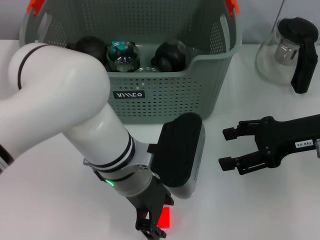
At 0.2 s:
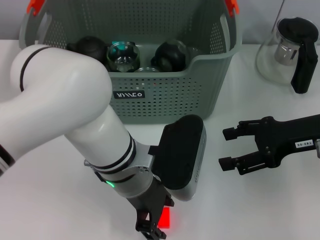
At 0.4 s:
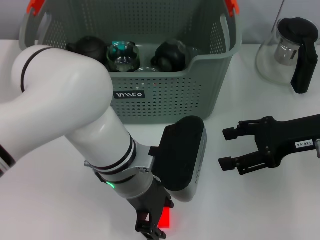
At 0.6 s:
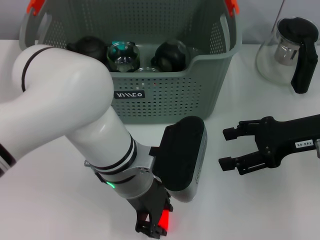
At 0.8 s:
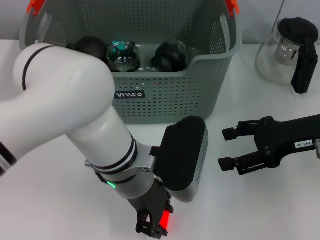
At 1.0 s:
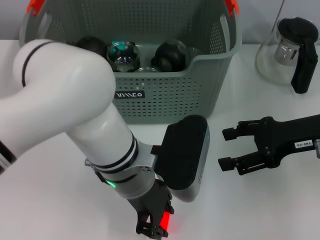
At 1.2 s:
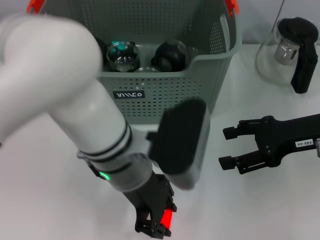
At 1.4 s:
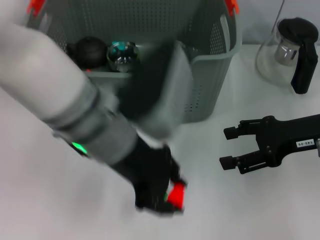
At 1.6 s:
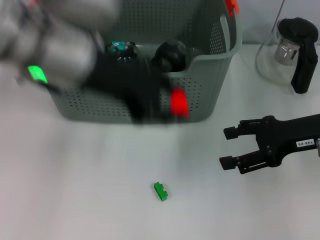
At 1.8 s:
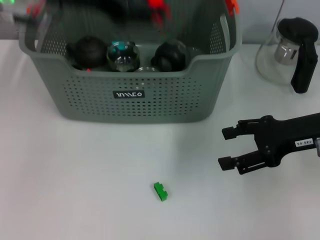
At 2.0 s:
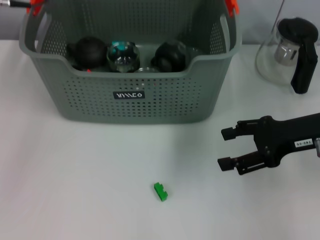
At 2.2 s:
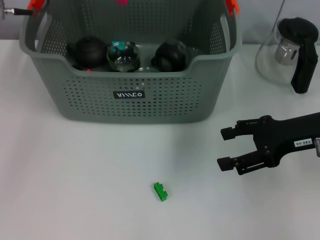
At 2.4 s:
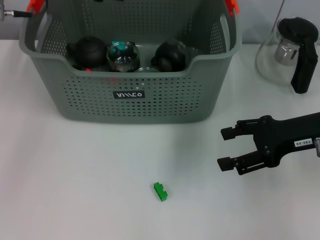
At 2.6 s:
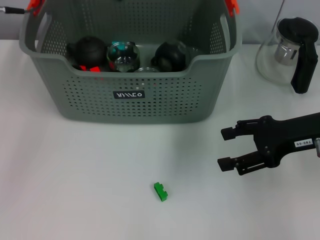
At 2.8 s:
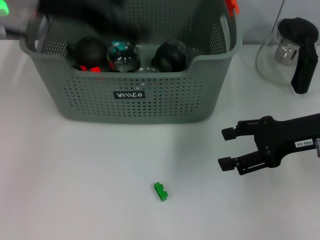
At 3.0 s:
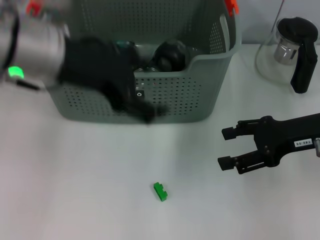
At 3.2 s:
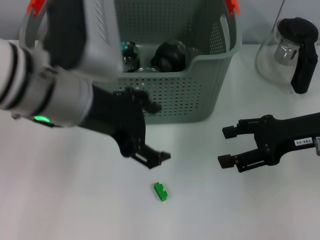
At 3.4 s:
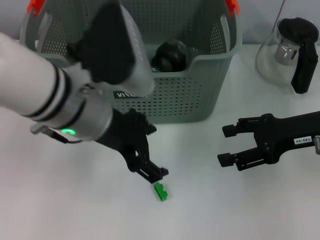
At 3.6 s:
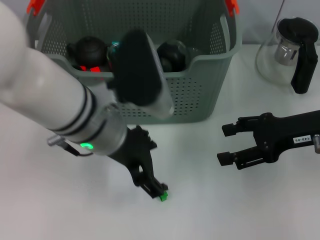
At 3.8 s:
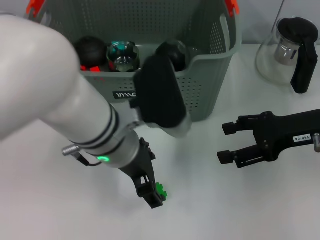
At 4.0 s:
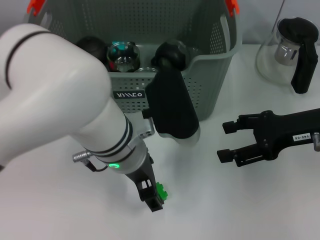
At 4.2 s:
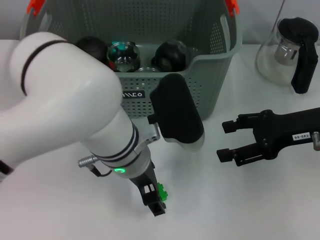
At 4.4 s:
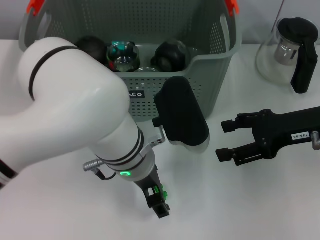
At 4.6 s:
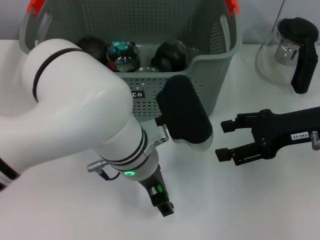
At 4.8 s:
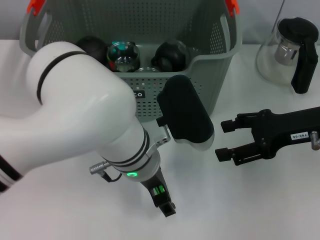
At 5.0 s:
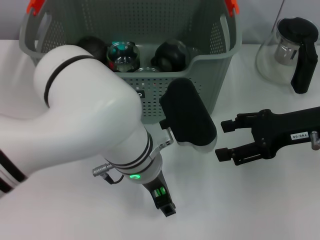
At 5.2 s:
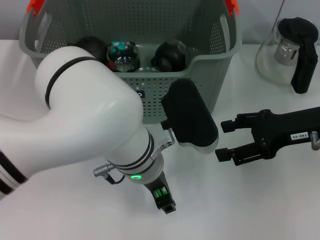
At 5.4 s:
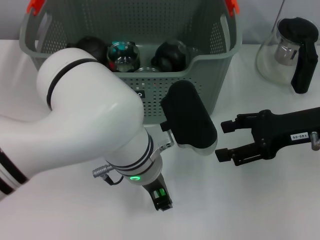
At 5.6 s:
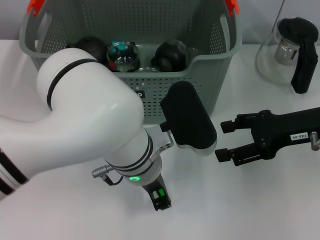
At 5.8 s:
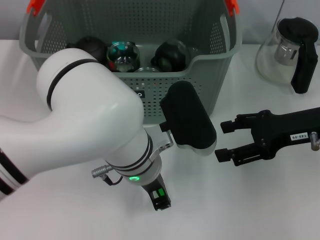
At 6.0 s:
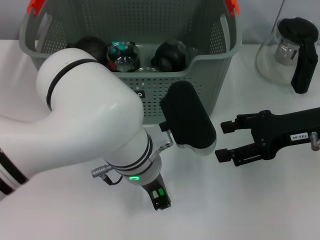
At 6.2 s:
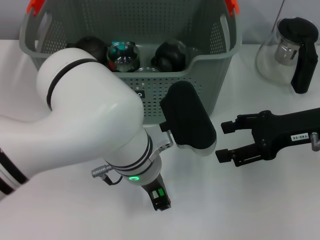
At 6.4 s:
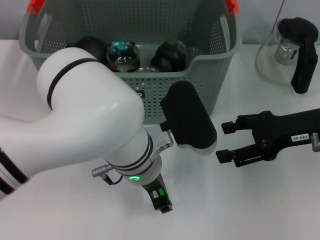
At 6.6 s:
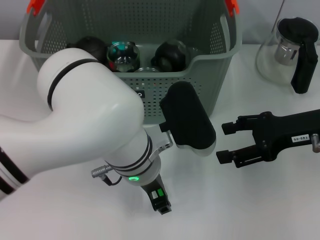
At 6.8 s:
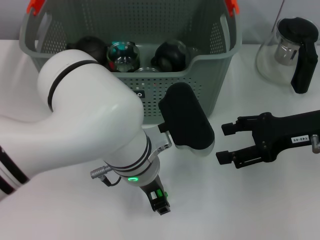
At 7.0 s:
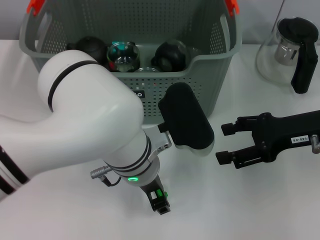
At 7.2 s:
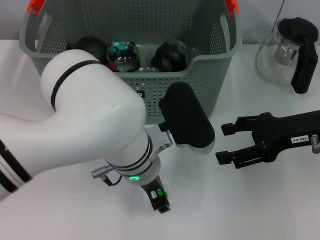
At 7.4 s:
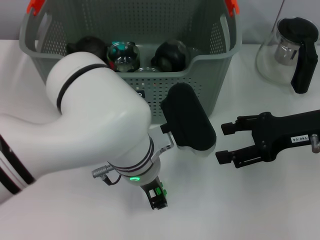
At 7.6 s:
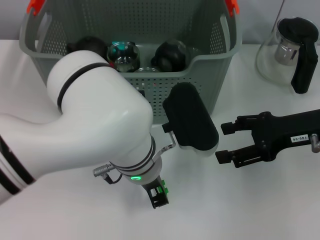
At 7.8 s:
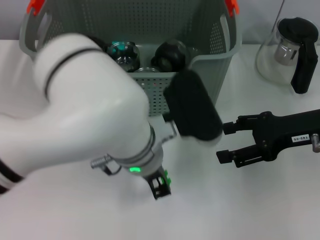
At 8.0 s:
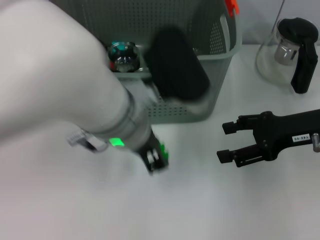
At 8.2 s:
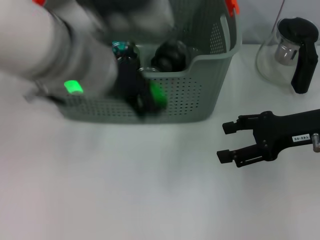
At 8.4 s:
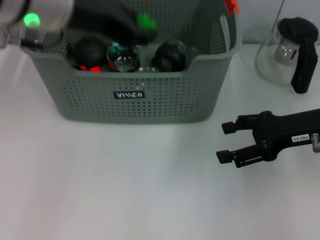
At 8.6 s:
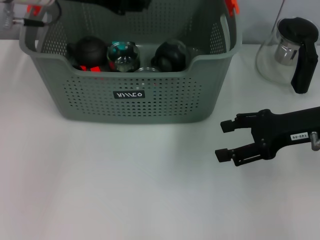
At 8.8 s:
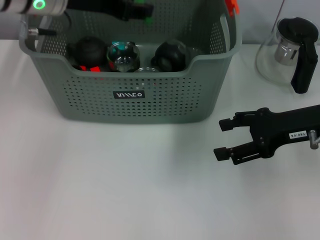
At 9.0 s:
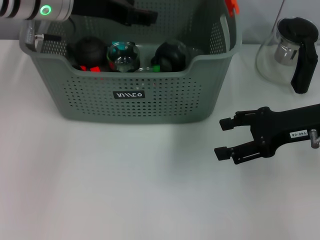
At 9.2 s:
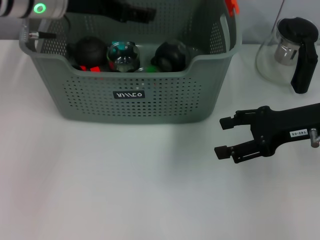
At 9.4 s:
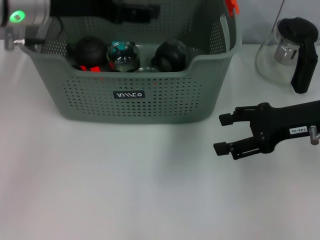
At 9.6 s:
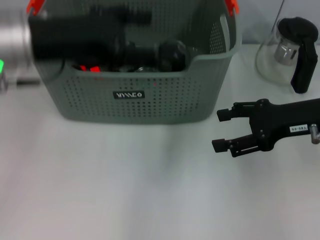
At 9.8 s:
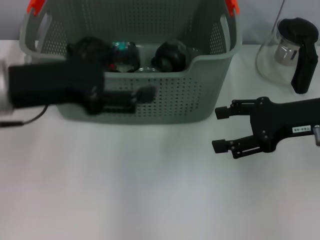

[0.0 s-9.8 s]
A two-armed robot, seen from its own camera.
Task of the whole recording: pick up the teacup on the table and place it into the storage bin, pick up the block on the table and place it into the storage bin.
Step, 0.8 to 2.4 s: Place the orange block in the storage box with left gripper.
Step, 2.6 to 7.4 s: Grasp the green block with left gripper.
Step, 7.6 to 8.8 s: Place the green block in the storage box with left gripper.
0.0 to 1.4 s: The left gripper shifts roughly 10 cm upward.
1.4 to 2.8 s: The left gripper is displaced to the left, forward and upward by about 15 cm, and opens up.
2.8 to 4.2 s: The left gripper goes approximately 20 cm to the right, downward and backward.
4.2 to 5.6 s: The left gripper closes.
5.6 to 7.0 s: Both grippers stay put.
7.0 to 8.4 s: The left gripper heads upward and to the left, covering approximately 20 cm.
8.4 to 9.8 s: The left gripper goes about 15 cm downward and to the left, and opens.

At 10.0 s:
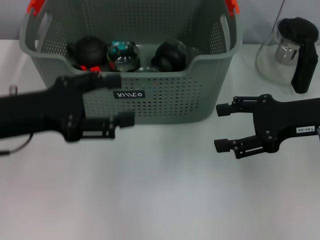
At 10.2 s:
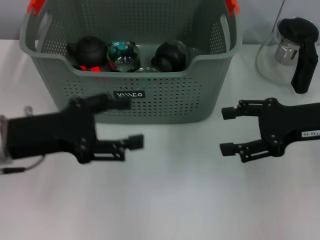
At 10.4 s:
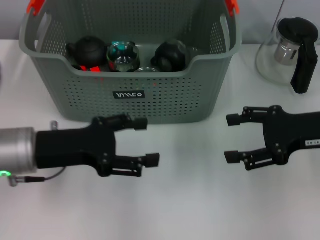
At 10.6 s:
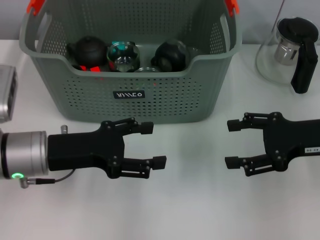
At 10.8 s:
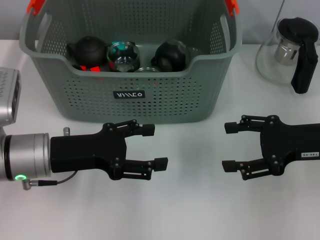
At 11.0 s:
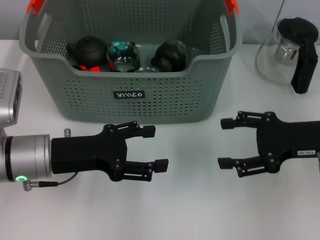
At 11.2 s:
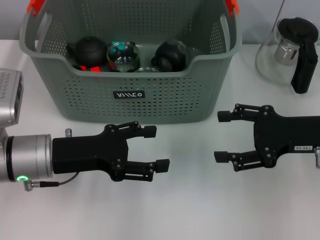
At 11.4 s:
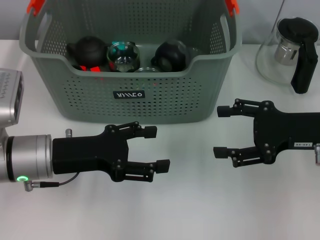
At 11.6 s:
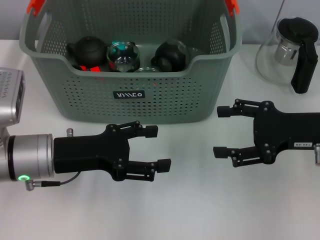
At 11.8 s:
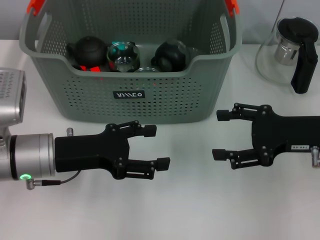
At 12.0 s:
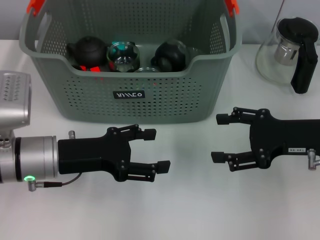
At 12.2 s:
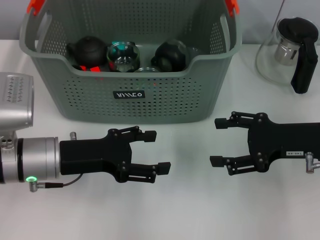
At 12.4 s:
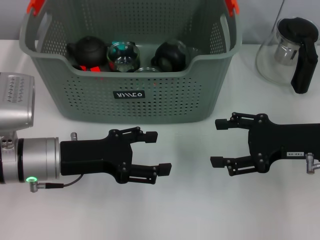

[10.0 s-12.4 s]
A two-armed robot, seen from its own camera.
Task of the whole recording: pick up the teacup on the table and place it into the storage bin, pick up the block on the table and place it into the storage bin.
10.0 to 11.2 s: The left gripper moves downward, about 10 cm.
11.2 to 12.4 s: There are only small adjustments of the grippers.
